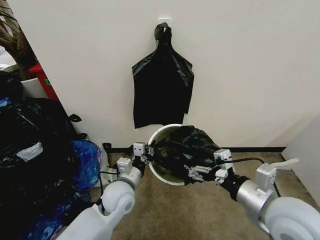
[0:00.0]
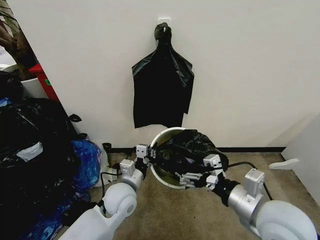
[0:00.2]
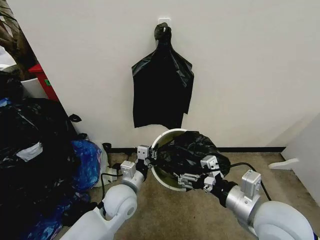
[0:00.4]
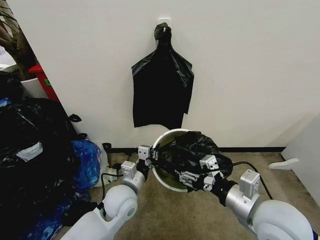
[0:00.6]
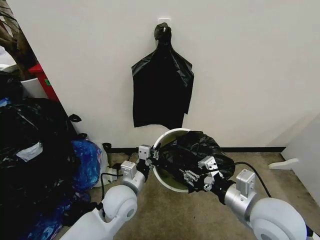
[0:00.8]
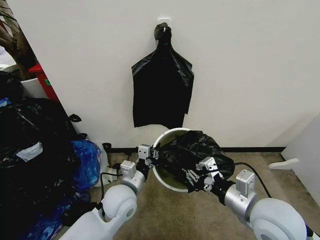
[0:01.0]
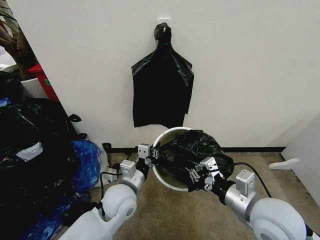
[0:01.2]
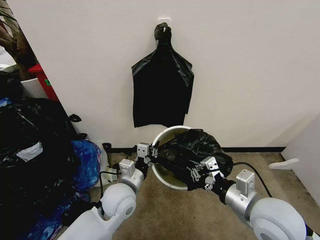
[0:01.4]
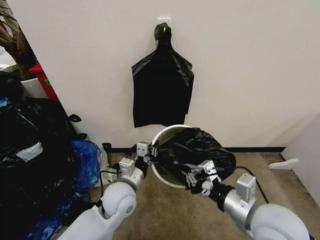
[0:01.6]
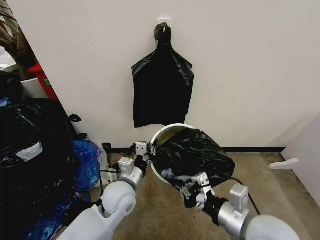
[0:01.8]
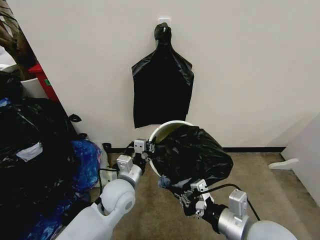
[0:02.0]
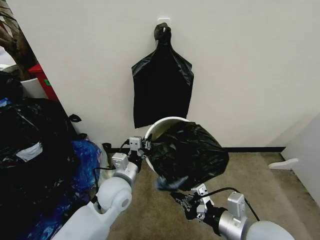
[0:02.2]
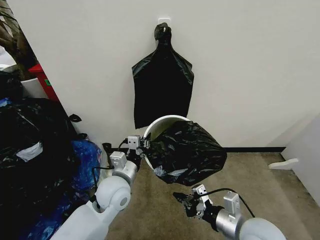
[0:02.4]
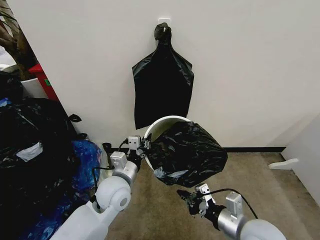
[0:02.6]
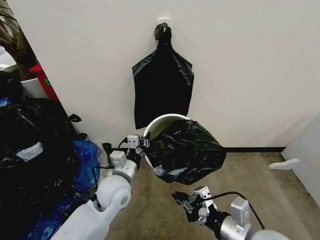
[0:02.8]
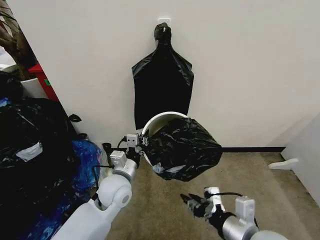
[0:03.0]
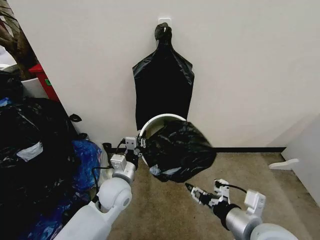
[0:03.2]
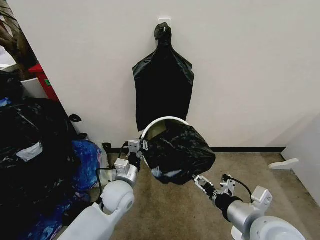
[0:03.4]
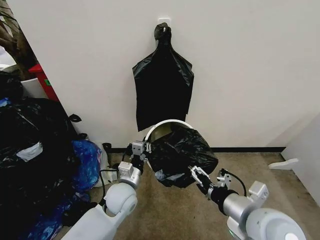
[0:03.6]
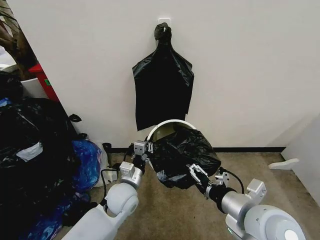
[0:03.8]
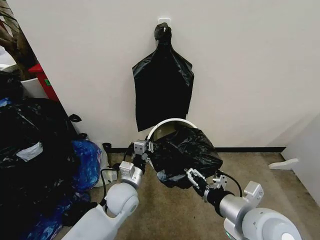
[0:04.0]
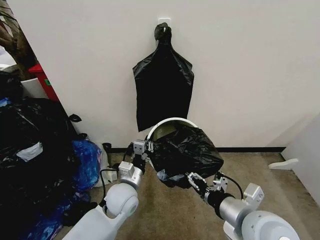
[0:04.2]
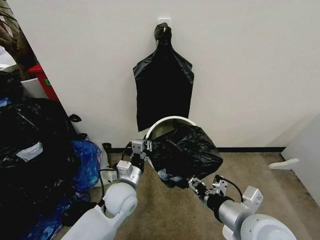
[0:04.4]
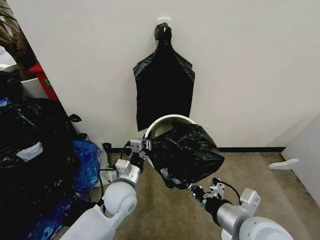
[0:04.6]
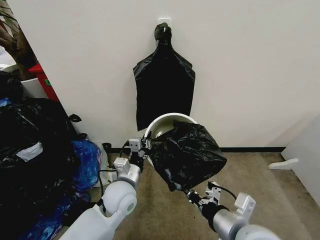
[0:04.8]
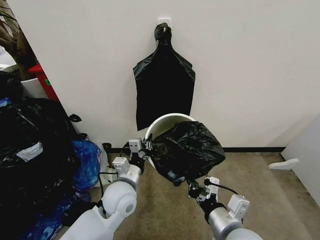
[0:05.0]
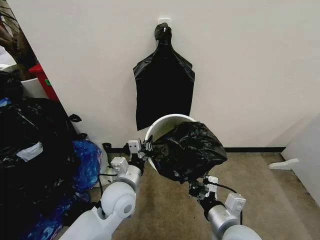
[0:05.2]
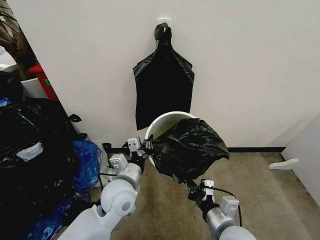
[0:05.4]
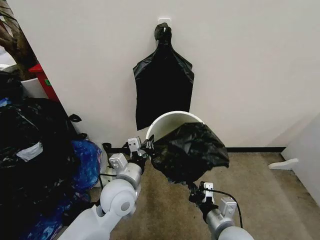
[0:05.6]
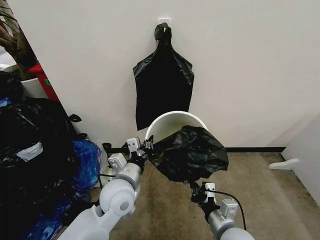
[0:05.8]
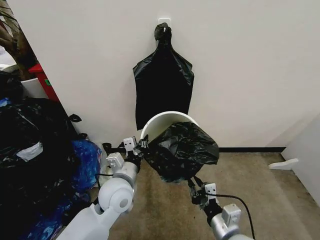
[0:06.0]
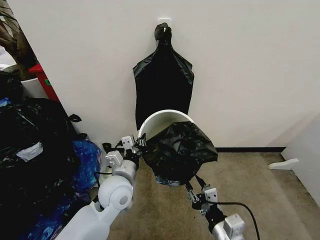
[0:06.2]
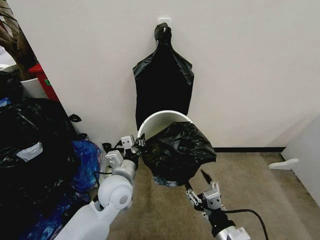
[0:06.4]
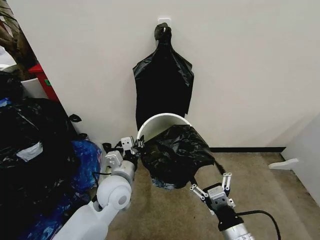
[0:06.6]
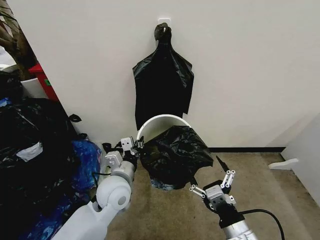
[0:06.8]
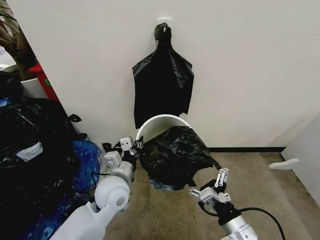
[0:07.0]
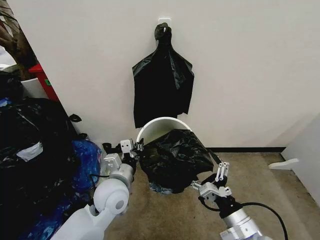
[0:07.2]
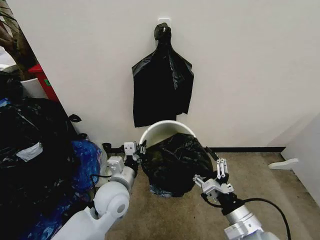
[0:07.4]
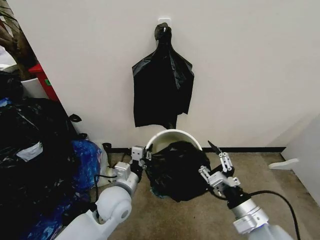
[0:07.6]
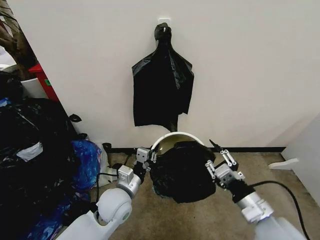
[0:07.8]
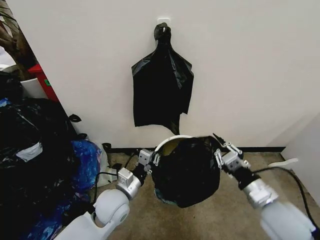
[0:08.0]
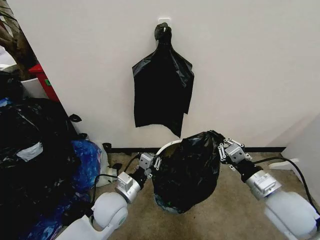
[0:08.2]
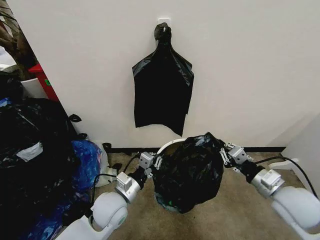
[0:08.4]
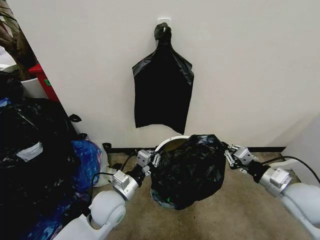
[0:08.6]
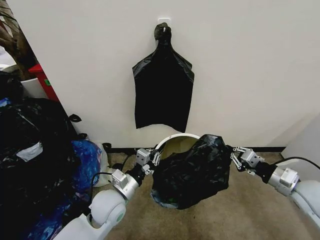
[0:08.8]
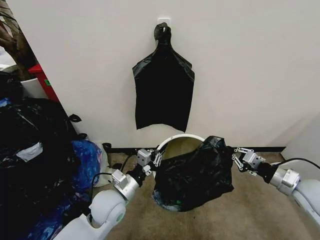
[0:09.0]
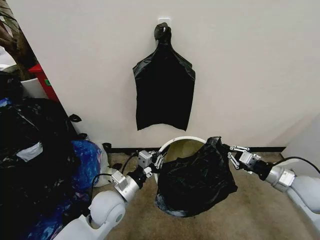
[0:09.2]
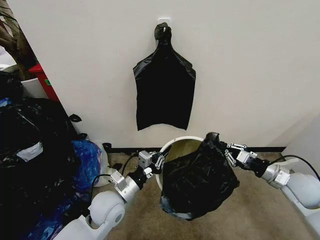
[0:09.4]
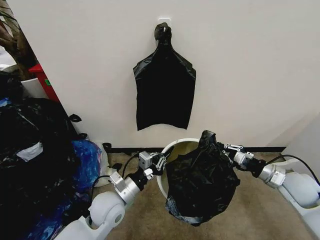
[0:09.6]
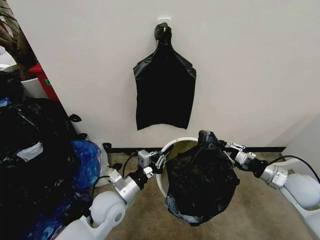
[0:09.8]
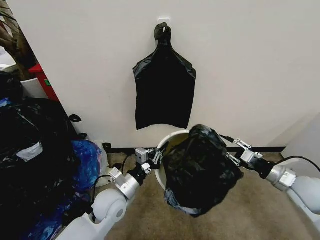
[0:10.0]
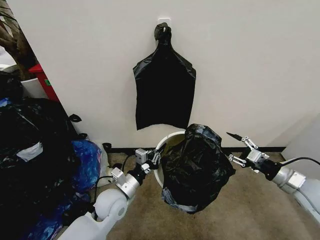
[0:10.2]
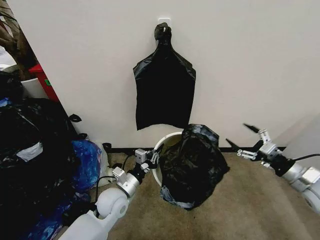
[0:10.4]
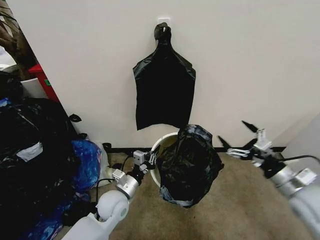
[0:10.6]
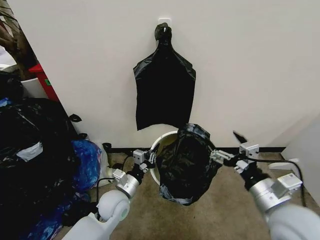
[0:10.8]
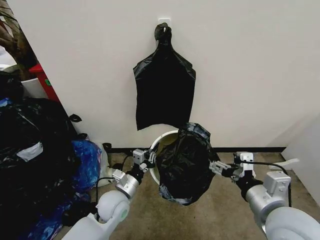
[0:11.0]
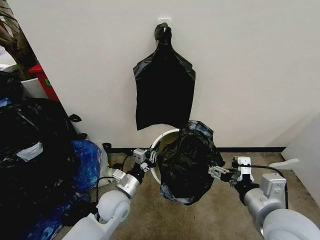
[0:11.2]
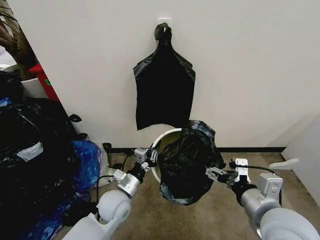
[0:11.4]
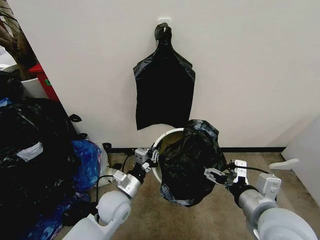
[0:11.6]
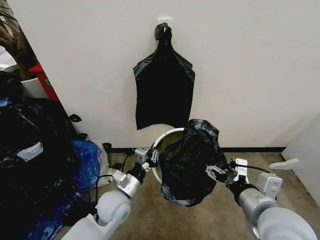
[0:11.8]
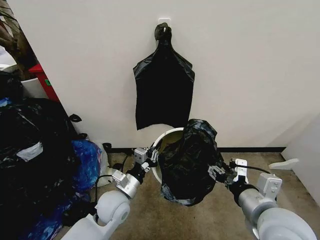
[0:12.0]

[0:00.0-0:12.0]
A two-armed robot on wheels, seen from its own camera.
Task of the whole recording: Place the garbage bag over the trash bin.
0:00.0 to 0:01.6: The right gripper closes up.
0:01.6 to 0:03.0: The right gripper ends up some 5 cm from where it was.
0:03.0 to 0:04.4: The right gripper opens, then closes once more.
0:04.4 to 0:06.0: The right gripper shifts roughly 10 cm downward. The left gripper changes place by roughly 5 cm.
0:06.0 to 0:07.6: The right gripper goes about 5 cm to the right, and opens its fingers.
0:07.6 to 0:09.0: The right gripper shifts some 20 cm to the right and forward, and closes.
0:09.0 to 0:10.4: The left gripper ends up about 5 cm from where it was; the right gripper opens its fingers.
0:10.4 to 0:12.0: The right gripper shifts some 25 cm to the left and backward.

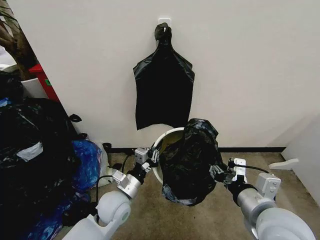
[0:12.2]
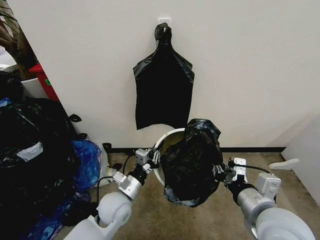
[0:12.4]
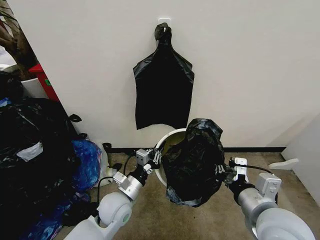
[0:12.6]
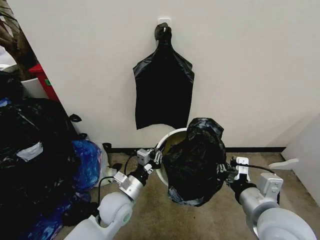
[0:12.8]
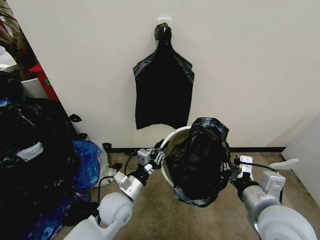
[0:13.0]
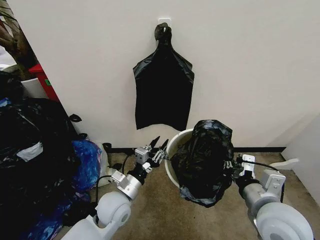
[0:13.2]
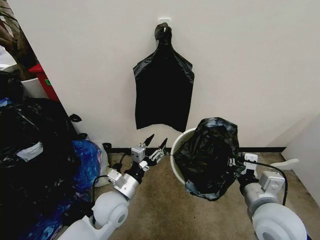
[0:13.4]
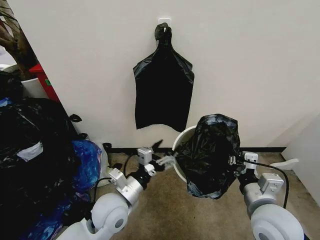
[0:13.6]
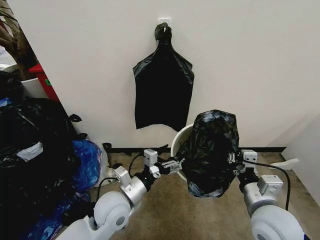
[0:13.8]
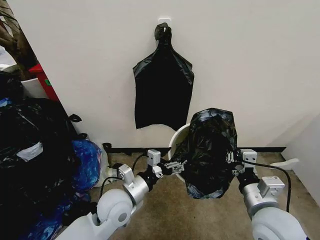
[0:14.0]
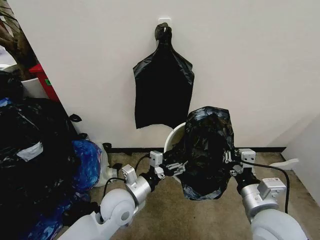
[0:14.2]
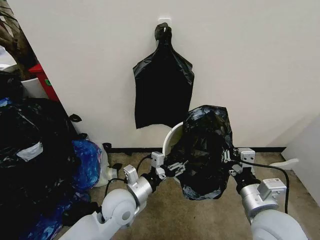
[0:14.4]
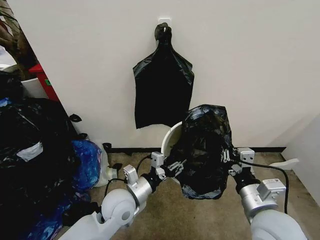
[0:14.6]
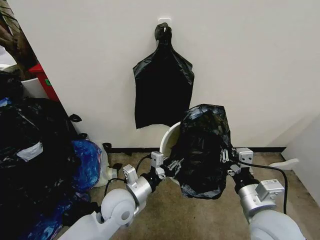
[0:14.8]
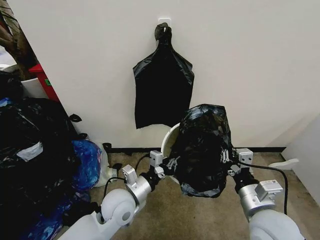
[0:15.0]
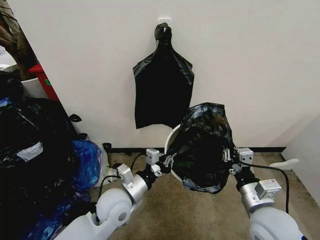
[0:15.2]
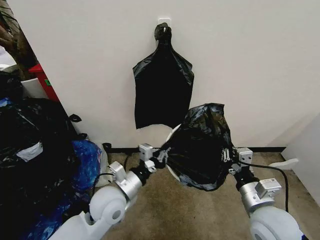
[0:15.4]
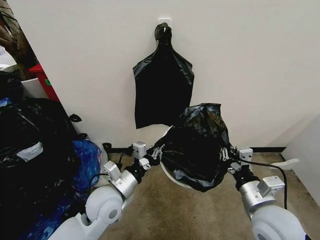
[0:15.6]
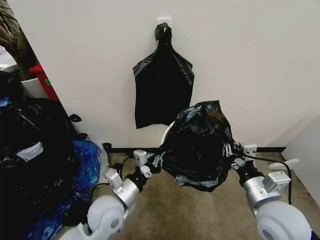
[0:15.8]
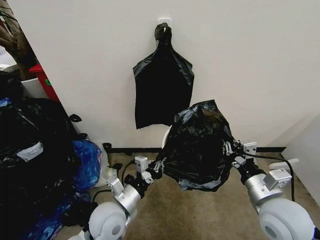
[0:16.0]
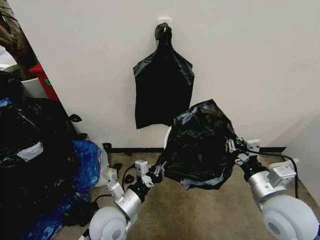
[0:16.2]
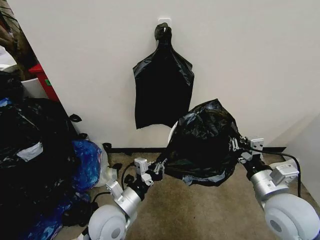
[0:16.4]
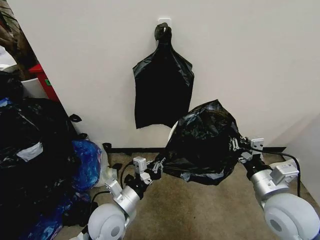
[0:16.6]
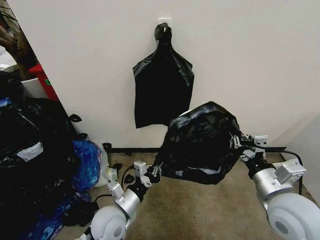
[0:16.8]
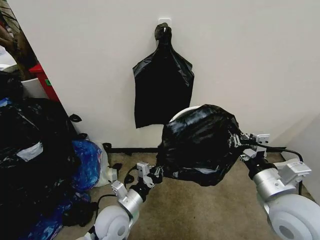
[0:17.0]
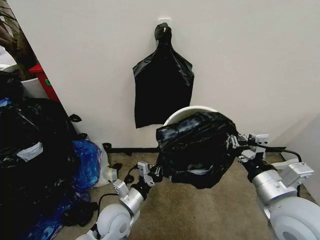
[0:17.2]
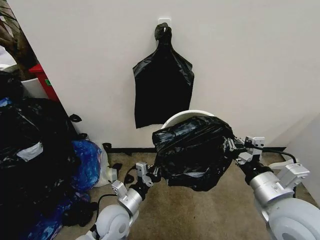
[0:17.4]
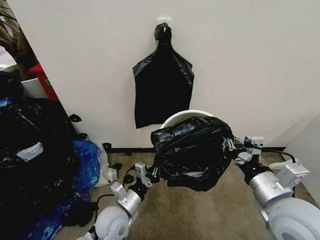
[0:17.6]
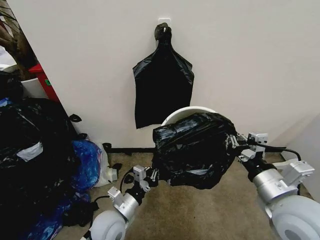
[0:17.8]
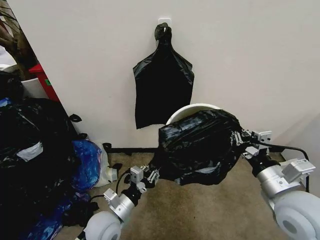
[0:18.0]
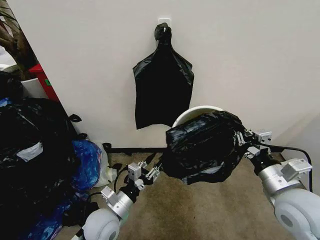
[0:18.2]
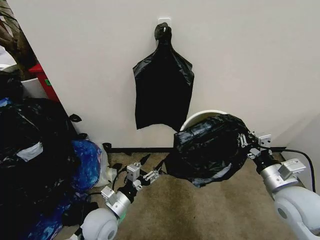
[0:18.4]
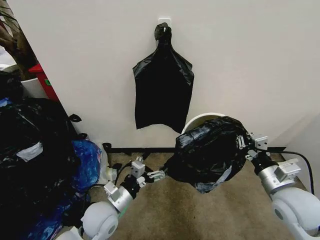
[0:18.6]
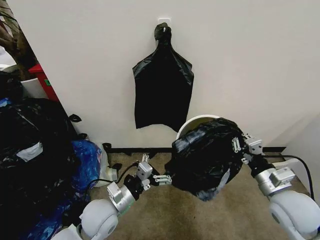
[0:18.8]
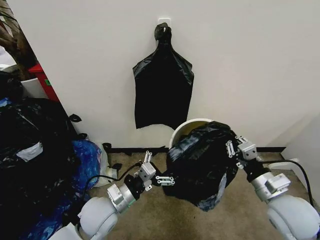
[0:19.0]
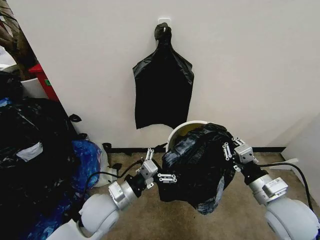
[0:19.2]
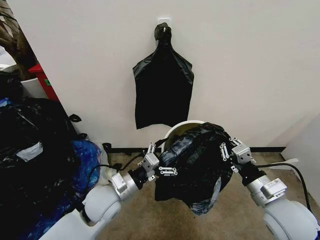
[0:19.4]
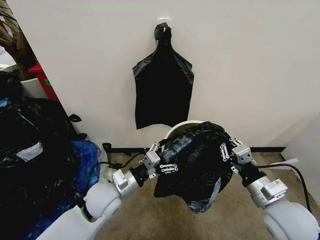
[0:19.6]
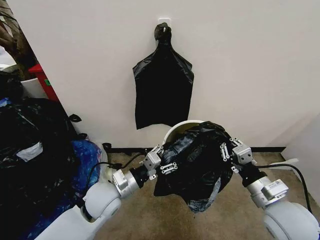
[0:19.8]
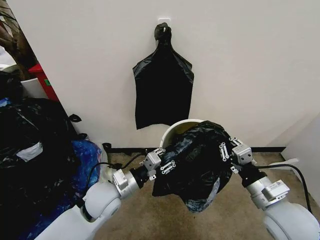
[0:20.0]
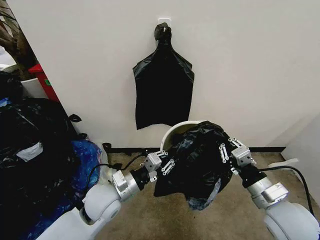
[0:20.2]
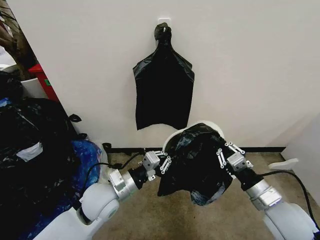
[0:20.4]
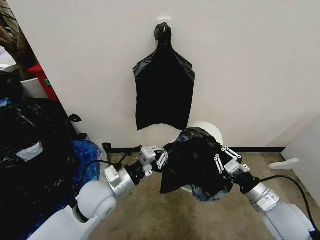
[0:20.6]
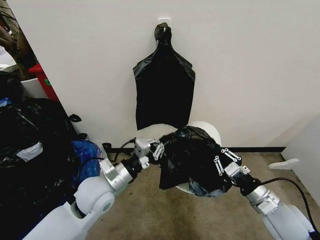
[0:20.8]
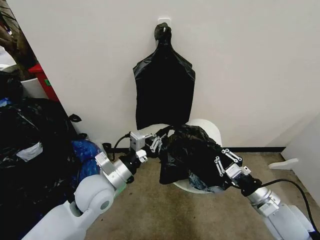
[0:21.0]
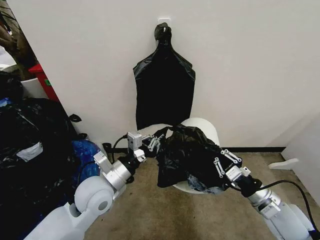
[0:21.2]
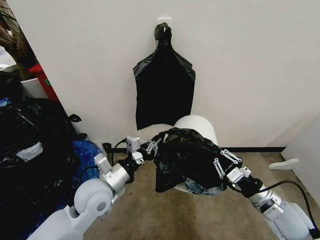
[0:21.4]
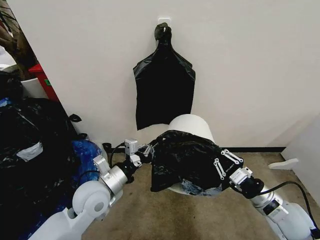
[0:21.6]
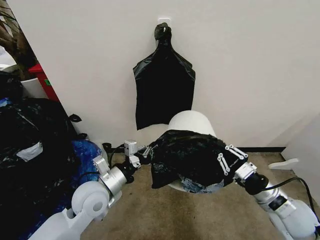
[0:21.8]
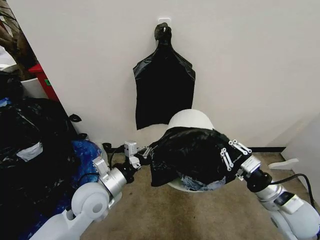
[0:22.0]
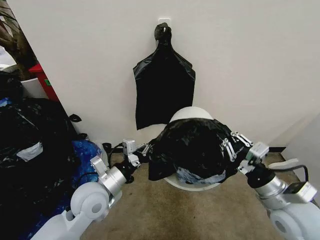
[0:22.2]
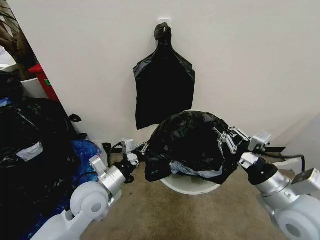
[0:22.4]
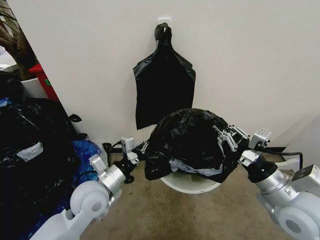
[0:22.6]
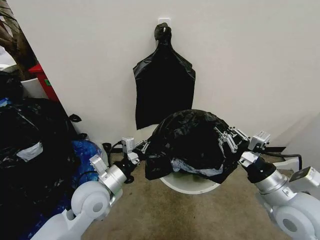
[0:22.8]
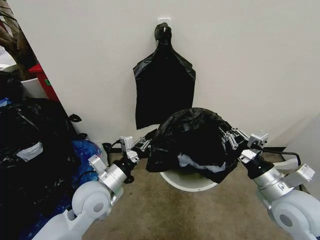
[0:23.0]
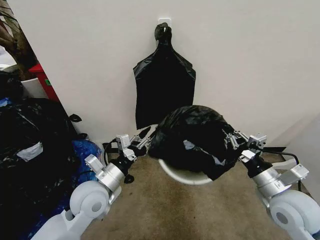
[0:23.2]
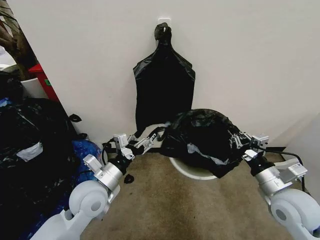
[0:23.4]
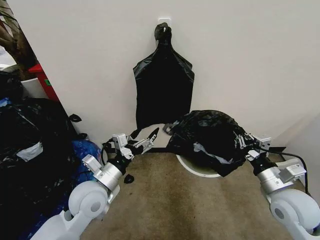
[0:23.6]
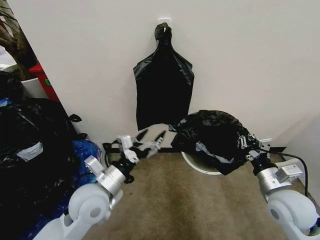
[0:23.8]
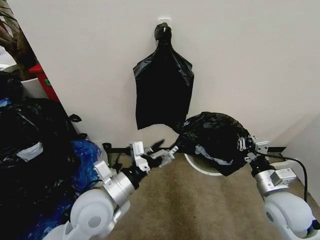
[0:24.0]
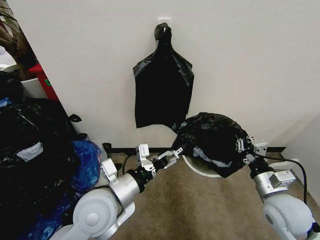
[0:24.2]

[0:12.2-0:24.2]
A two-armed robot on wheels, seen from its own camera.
Task of the whole recording: Place the garbage bag over the trash bin.
0:12.2 to 0:13.8: The right gripper ends up roughly 5 cm from where it was. The left gripper moves upward, some 5 cm, and opens up.
0:13.8 to 0:15.2: The left gripper closes.
0:15.2 to 0:16.6: The right gripper moves about 5 cm.
0:16.6 to 0:18.2: The left gripper opens.
0:18.2 to 0:19.8: The left gripper shifts roughly 10 cm upward and forward, and opens and closes again.
0:19.8 to 0:21.2: The left gripper closes its fingers. The right gripper travels downward by roughly 5 cm.
0:21.2 to 0:22.6: The right gripper goes some 10 cm upward.
0:22.6 to 0:24.2: The left gripper travels upward by about 5 cm, and opens up. The right gripper is displaced downward by approximately 10 cm.
